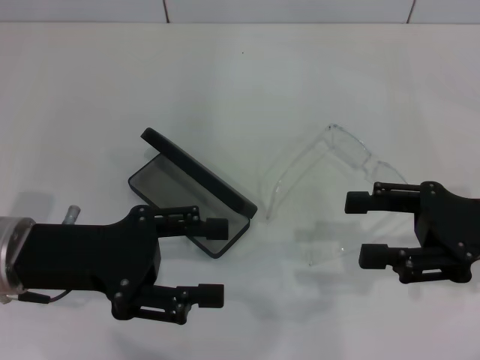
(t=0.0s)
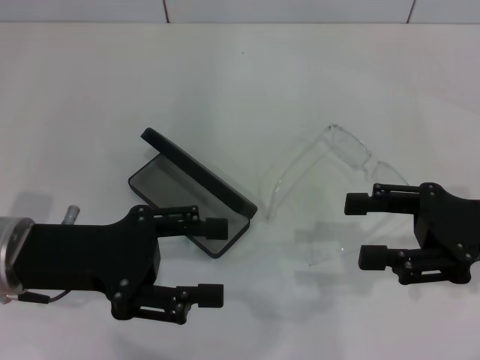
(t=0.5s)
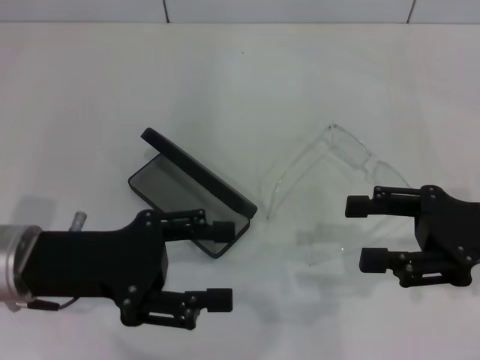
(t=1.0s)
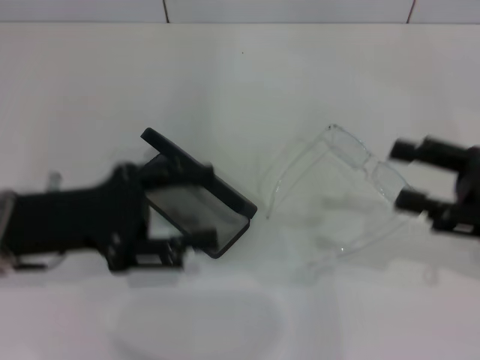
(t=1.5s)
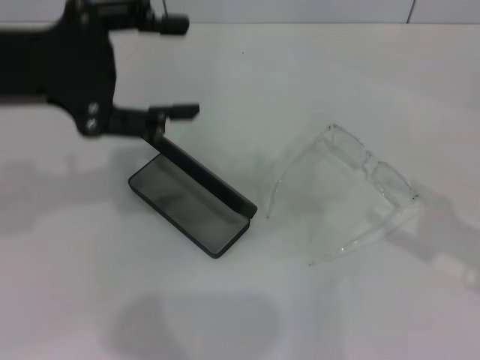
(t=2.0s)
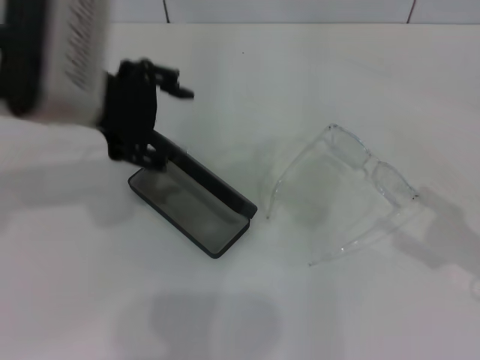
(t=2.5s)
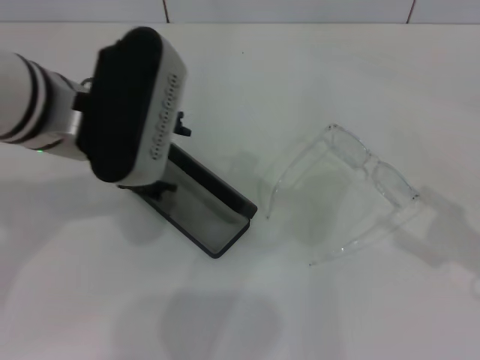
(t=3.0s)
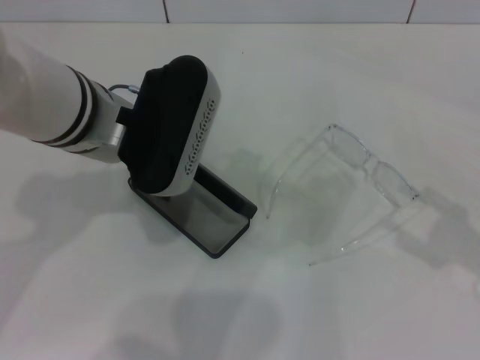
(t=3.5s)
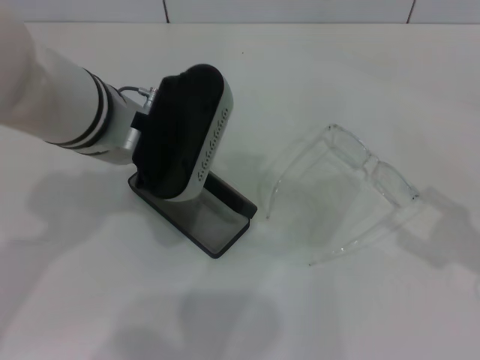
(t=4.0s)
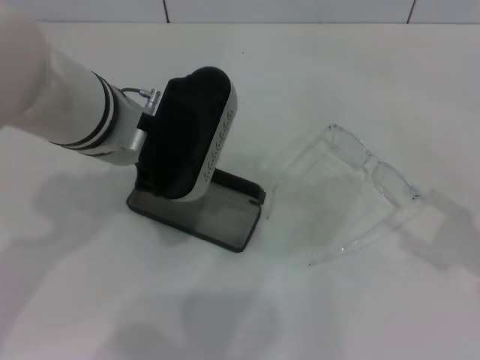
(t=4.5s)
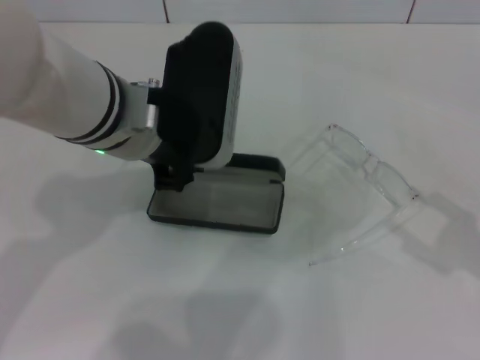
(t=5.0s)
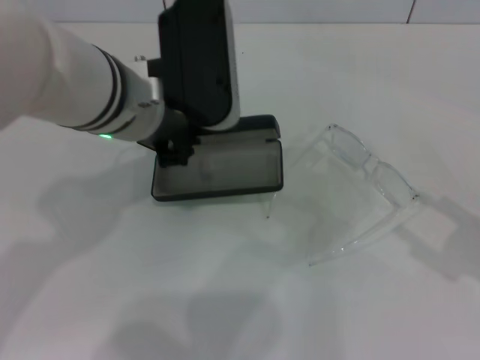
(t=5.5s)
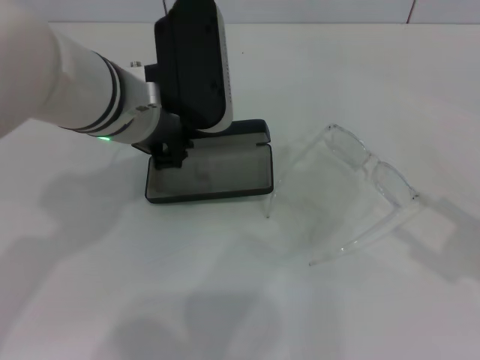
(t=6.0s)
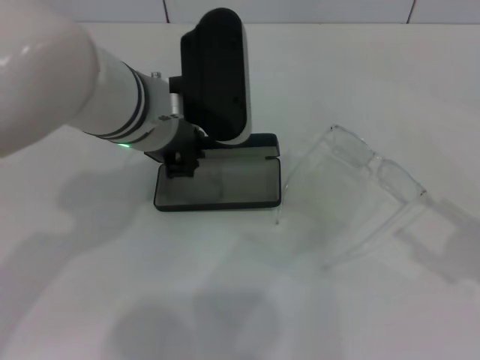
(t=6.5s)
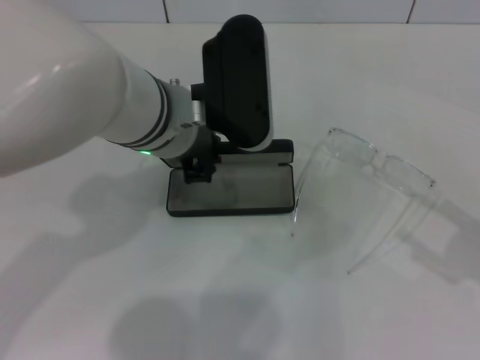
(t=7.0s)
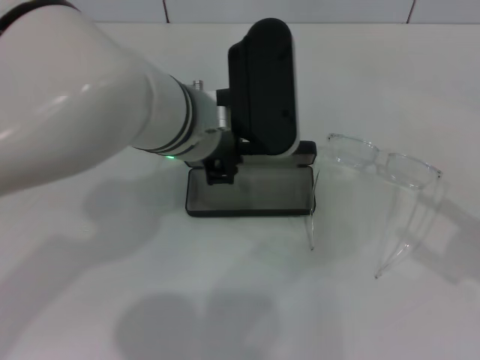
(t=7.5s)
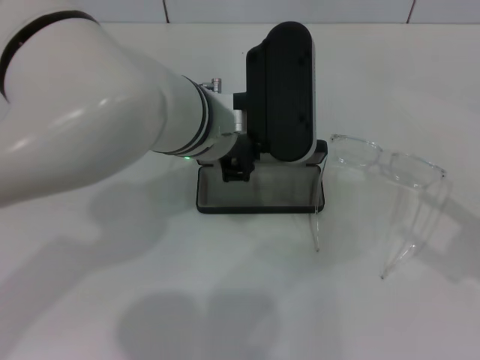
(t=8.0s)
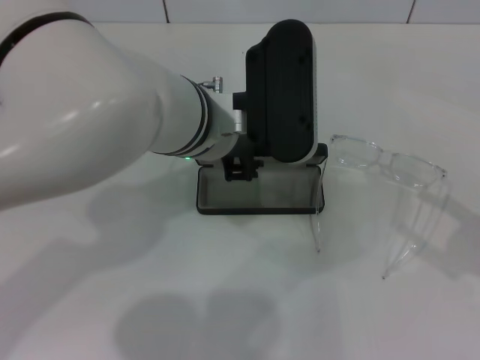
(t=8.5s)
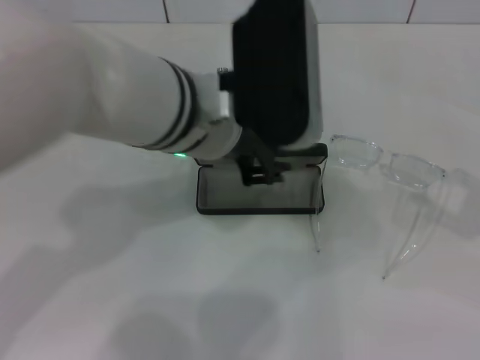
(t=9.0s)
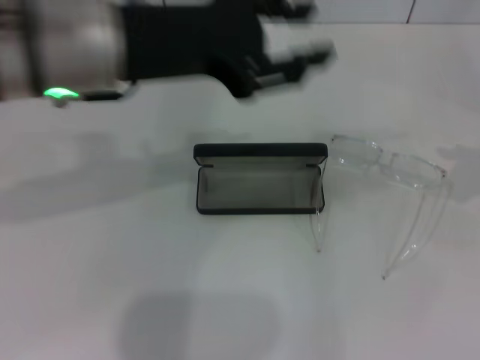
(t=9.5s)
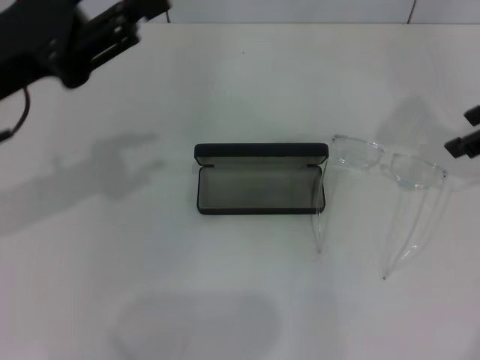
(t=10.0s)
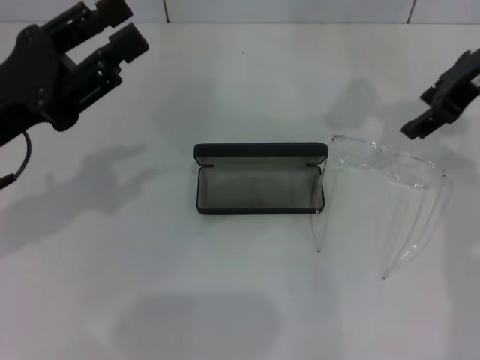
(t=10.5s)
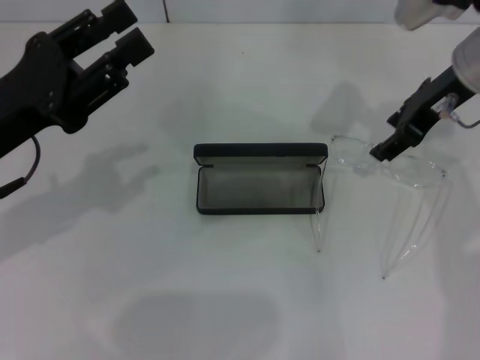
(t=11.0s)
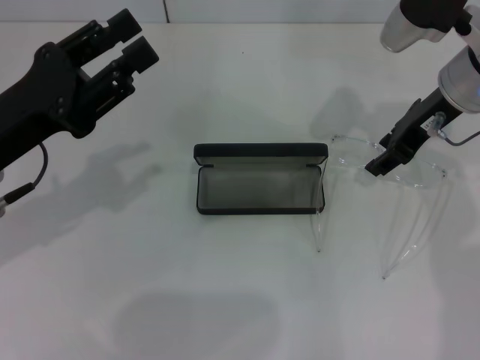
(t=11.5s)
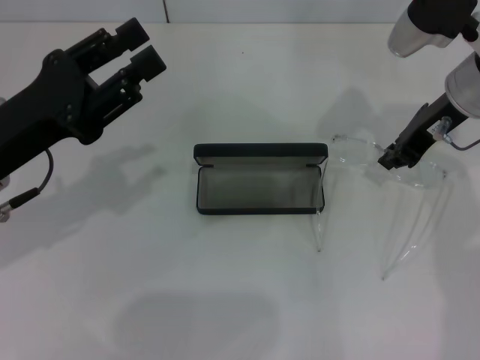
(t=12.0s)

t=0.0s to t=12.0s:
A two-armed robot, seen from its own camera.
Step, t=0.0s to t=4.0s: Grab the glasses case with your left hand.
Step, t=4.5s to t=8.5s: Place the glasses case in the center of the table with your left hand.
t=0.0s to t=2.0s: The left gripper goes some 15 cm upward; the right gripper goes approximately 5 cm to the right.
t=2.0s to t=4.0s: The left gripper shifts about 15 cm to the right and downward.
t=4.0s to t=6.0s: The left gripper closes.
t=6.0s to t=8.0s: The left gripper shifts approximately 5 cm to the right.
t=8.0s to t=10.0s: The right gripper is displaced forward, upward and to the left by approximately 25 cm. The left gripper shifts some 20 cm to the left, and opens its fingers.
t=10.0s to t=12.0s: The left gripper heads downward, covering roughly 5 cm. Meanwhile the right gripper travels to the left and downward by approximately 10 cm, and closes up.

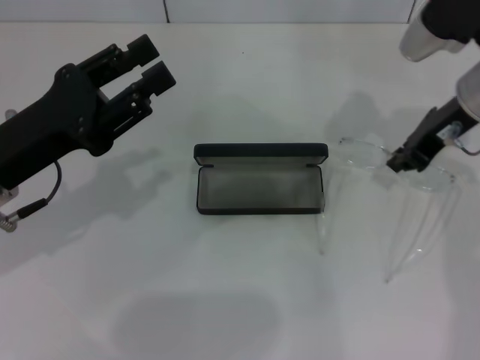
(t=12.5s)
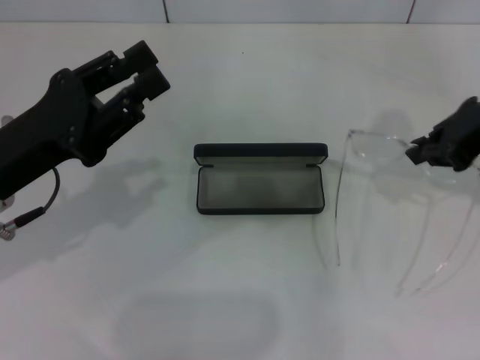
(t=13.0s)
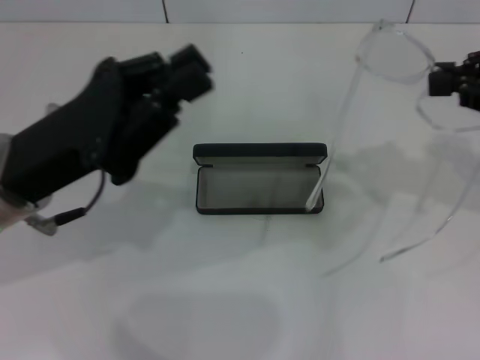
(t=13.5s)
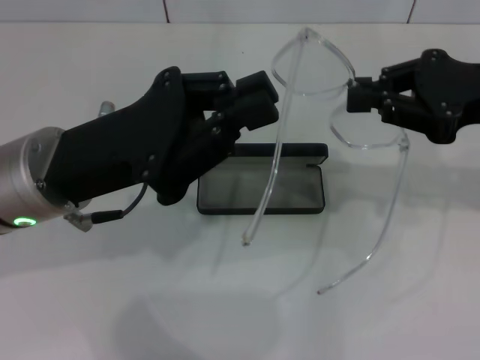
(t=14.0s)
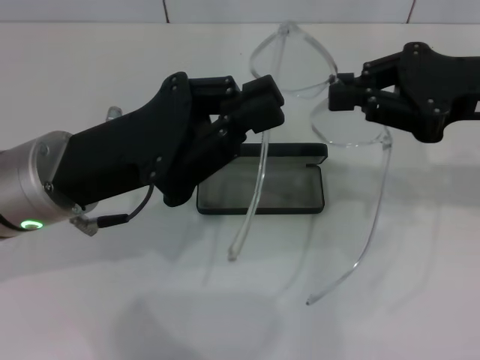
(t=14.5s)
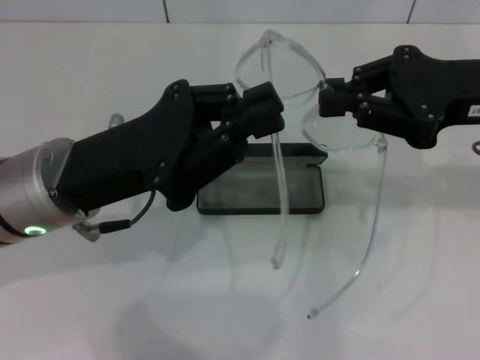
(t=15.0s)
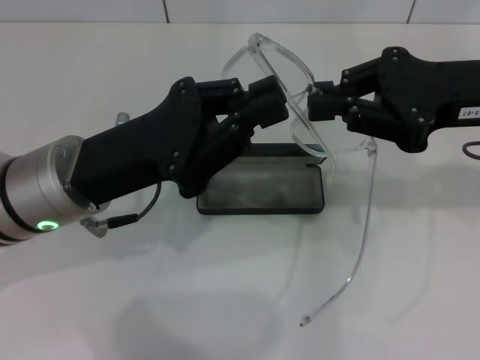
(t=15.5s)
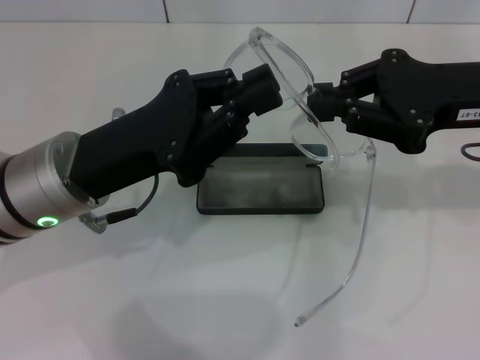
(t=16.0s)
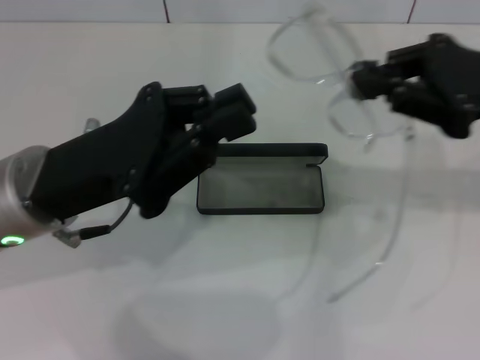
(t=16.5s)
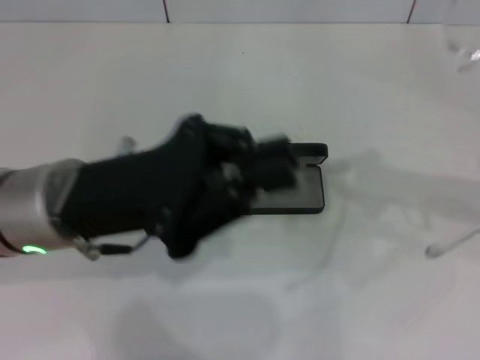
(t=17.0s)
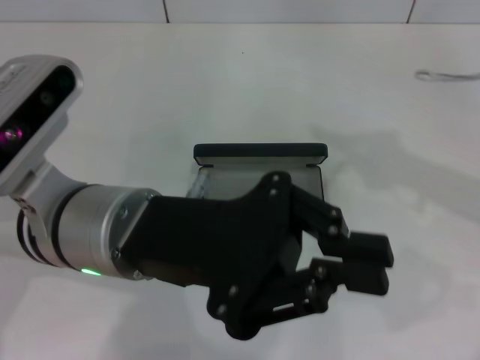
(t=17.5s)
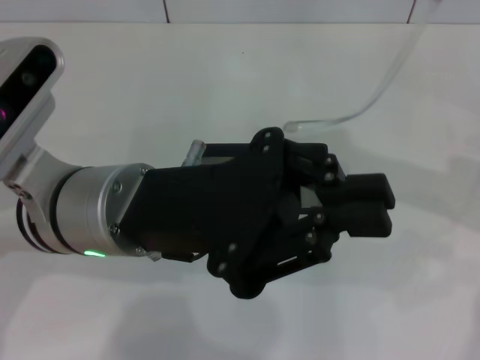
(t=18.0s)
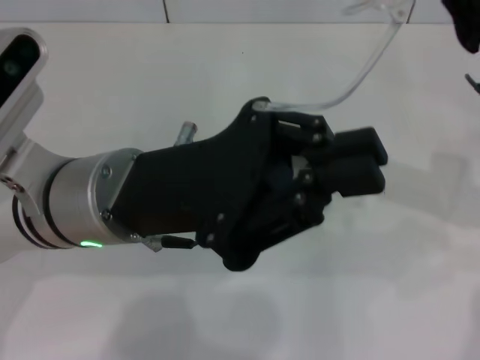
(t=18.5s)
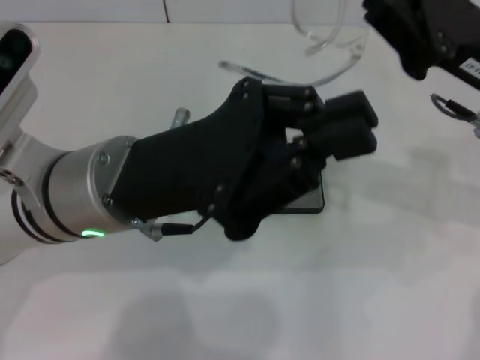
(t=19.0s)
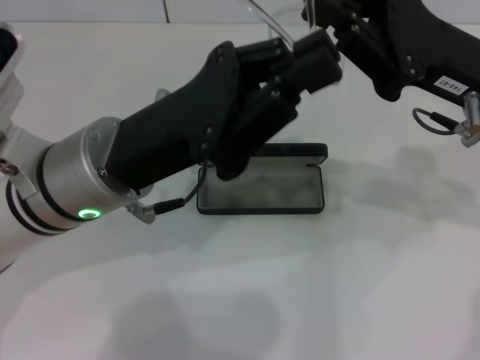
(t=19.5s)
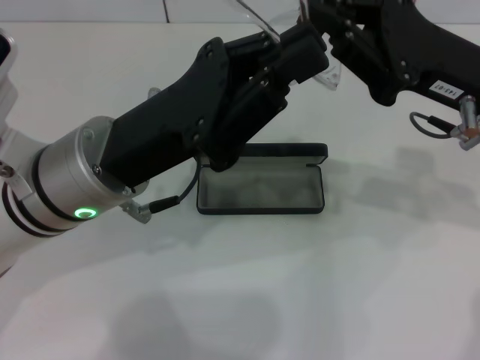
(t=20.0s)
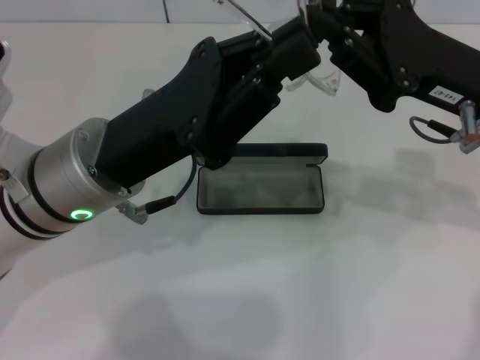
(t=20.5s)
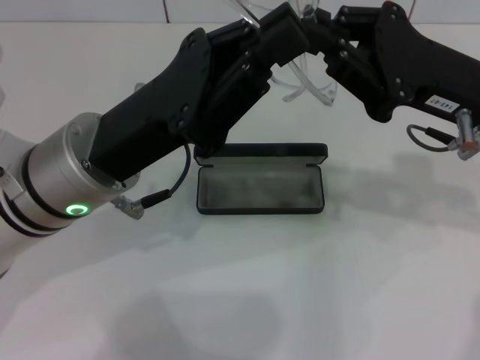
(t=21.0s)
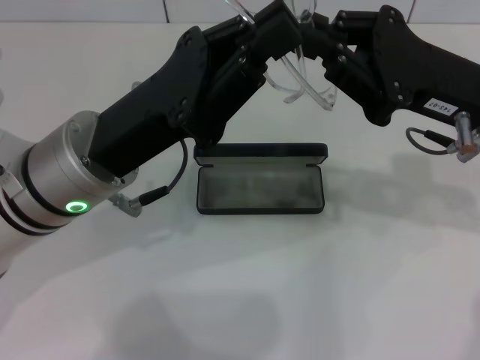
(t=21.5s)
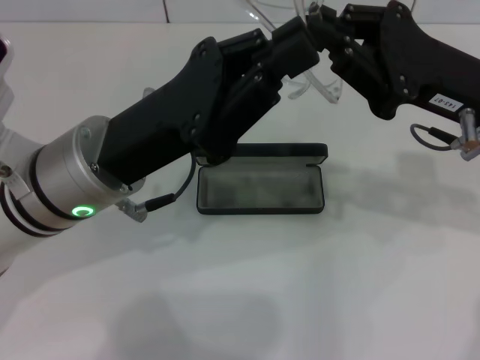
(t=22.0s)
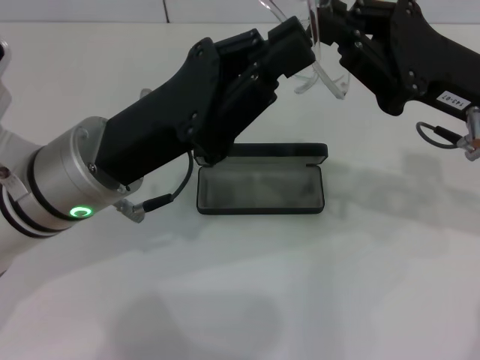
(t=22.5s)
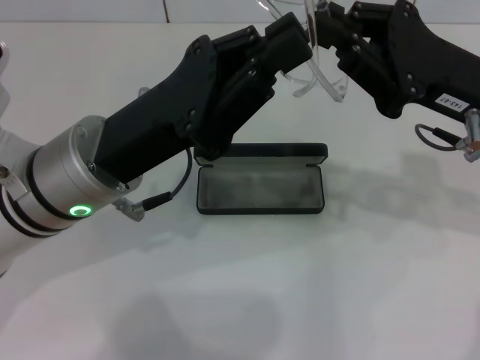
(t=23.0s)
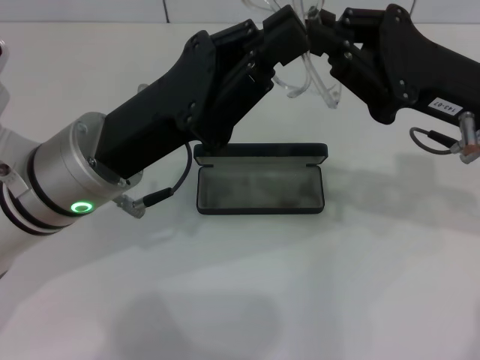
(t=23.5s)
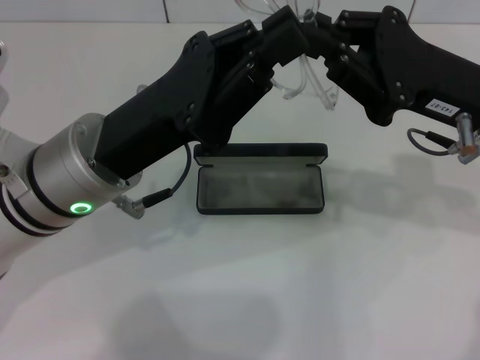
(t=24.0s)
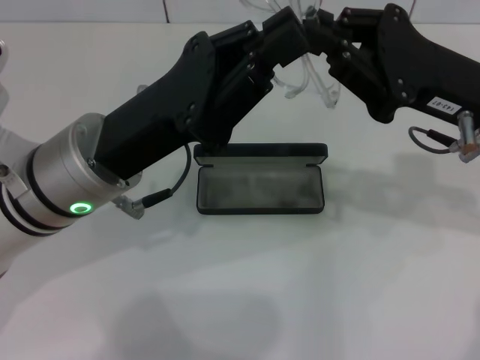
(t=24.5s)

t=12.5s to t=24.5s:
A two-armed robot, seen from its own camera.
t=12.5s to t=14.5s: The left gripper heads to the right, covering some 5 cm, and closes, while the right gripper heads backward, covering roughly 10 cm.
t=14.5s to t=16.5s: There are only small adjustments of the grippers.
t=16.5s to t=18.5s: The left gripper is displaced to the right by some 5 cm.
t=20.5s to t=24.5s: Both grippers stay about where they are.

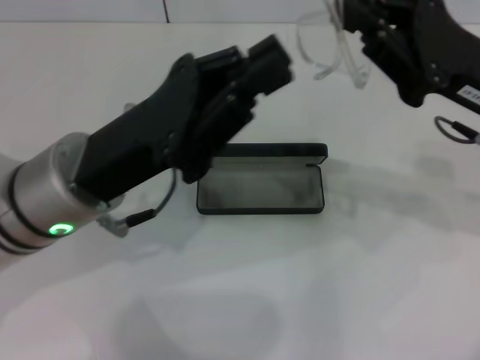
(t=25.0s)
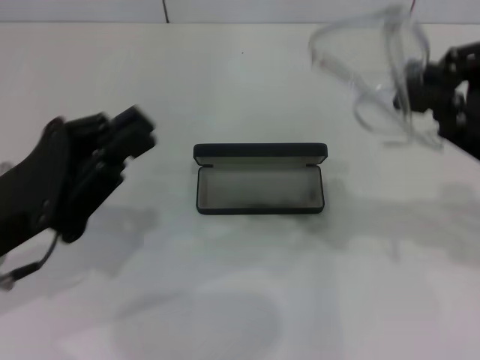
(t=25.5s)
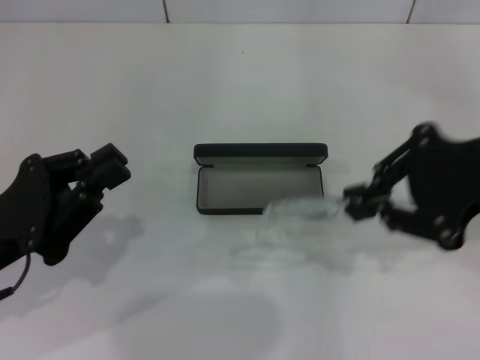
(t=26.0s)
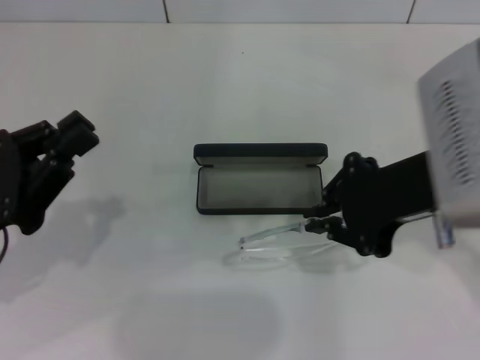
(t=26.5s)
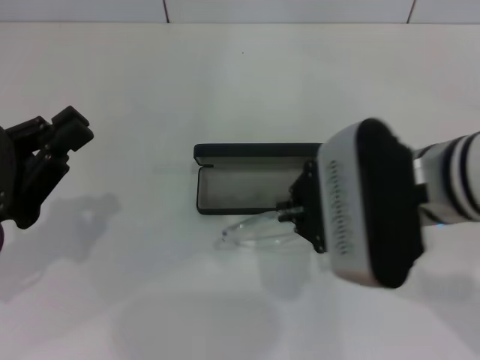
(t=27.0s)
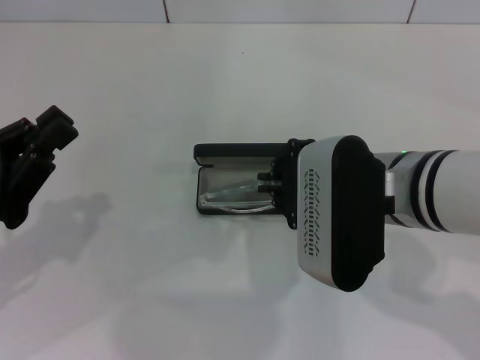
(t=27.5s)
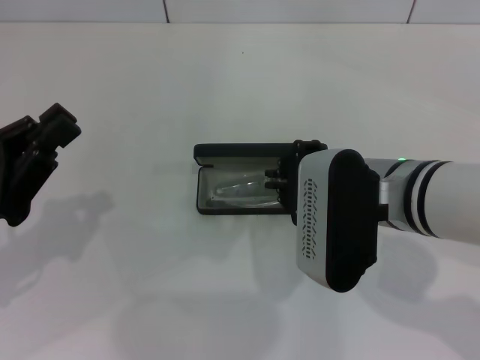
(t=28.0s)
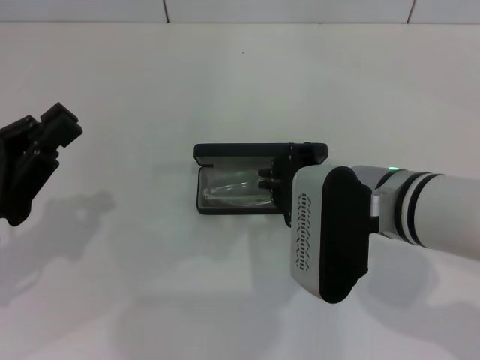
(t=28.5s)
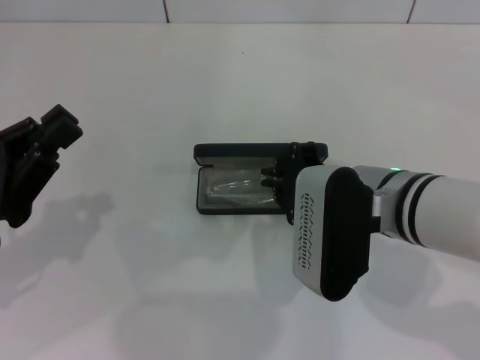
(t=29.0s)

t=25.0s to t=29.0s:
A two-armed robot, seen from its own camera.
t=25.0s to t=27.0s: The right gripper heads to the left and backward, covering approximately 10 cm; the left gripper goes some 15 cm to the left.
t=27.0s to t=29.0s: The right gripper heads downward, covering roughly 5 cm.
